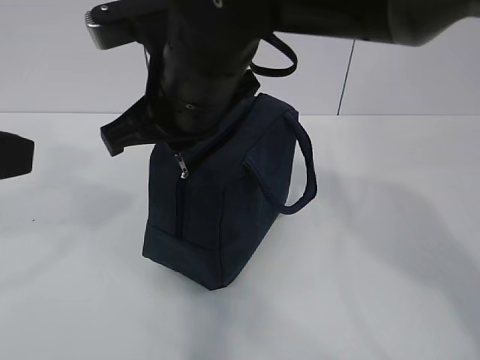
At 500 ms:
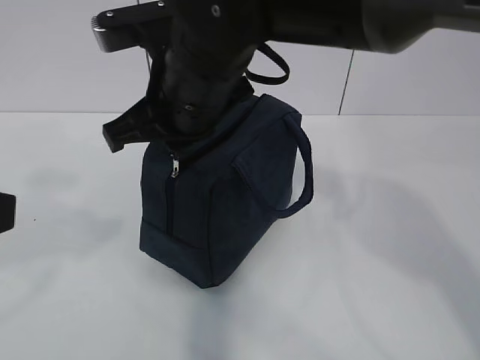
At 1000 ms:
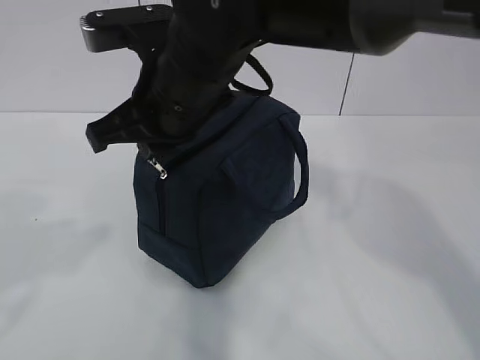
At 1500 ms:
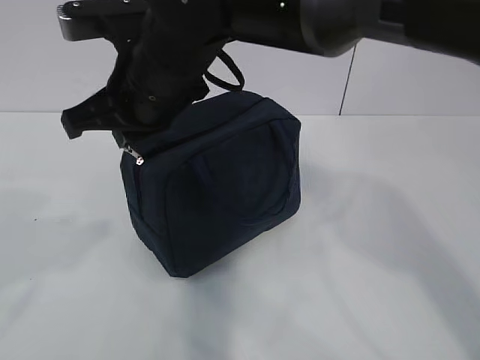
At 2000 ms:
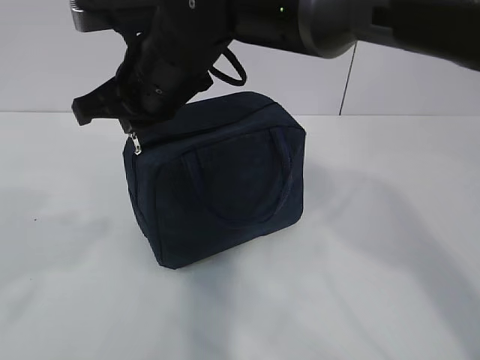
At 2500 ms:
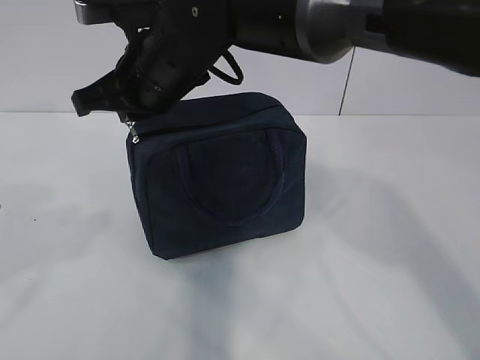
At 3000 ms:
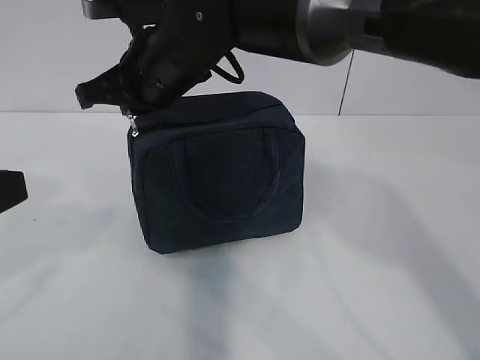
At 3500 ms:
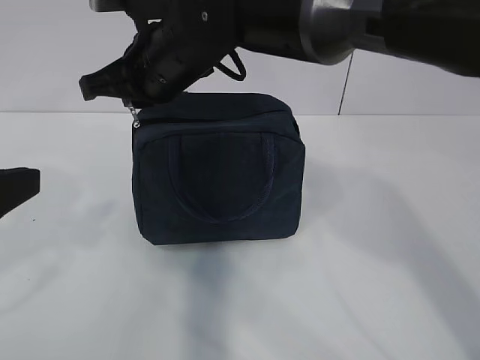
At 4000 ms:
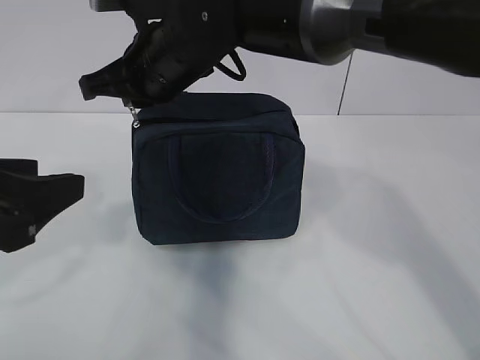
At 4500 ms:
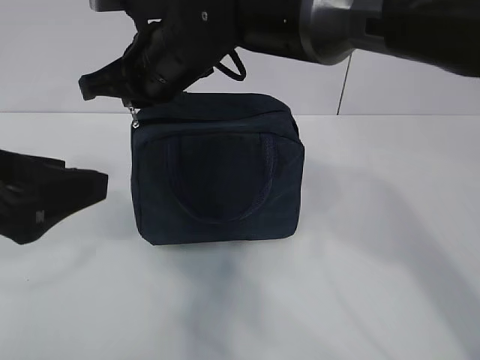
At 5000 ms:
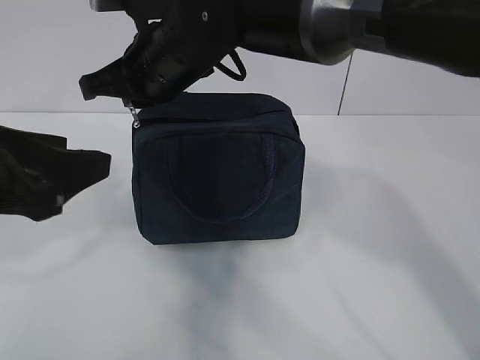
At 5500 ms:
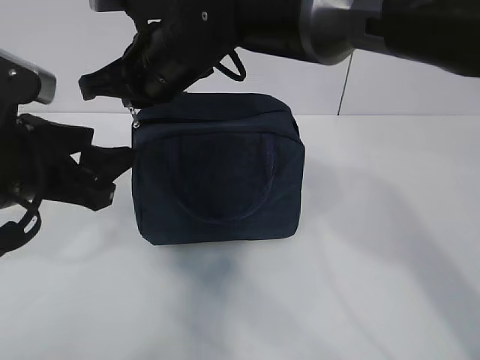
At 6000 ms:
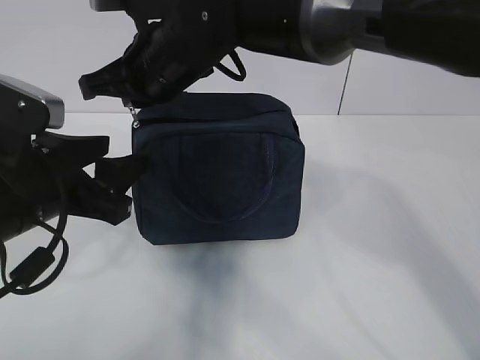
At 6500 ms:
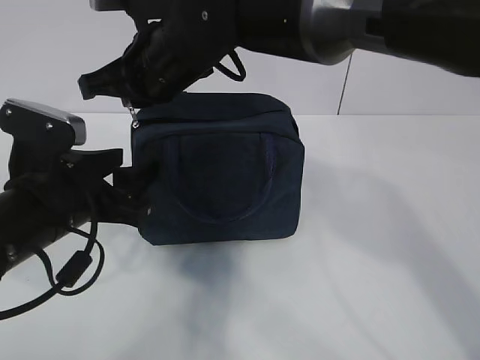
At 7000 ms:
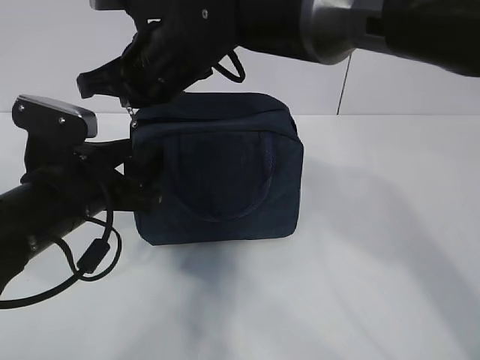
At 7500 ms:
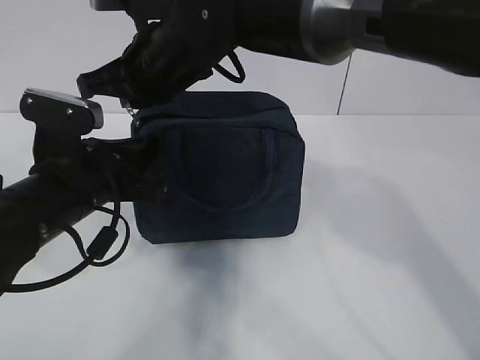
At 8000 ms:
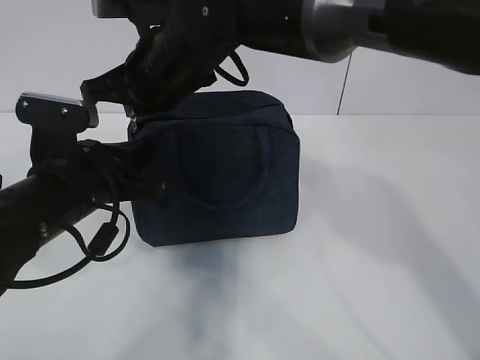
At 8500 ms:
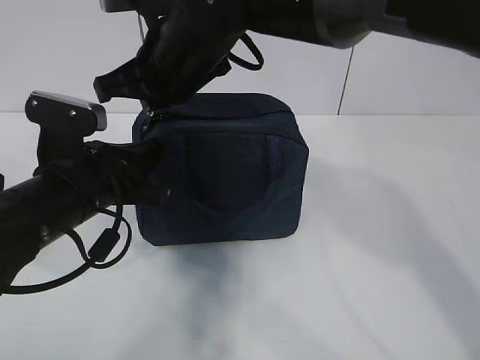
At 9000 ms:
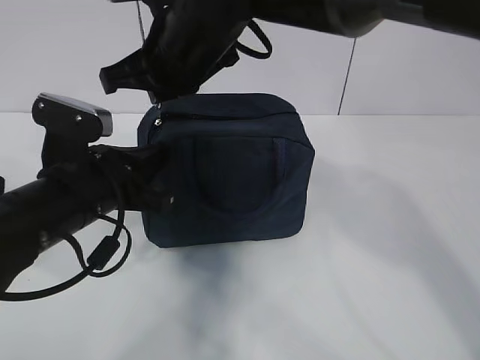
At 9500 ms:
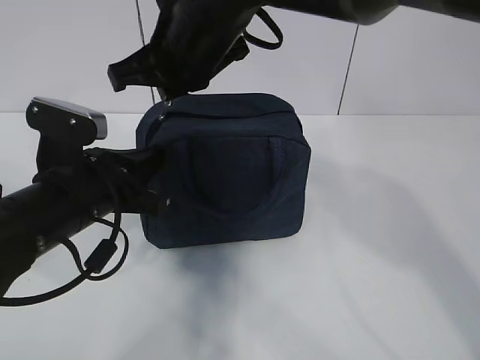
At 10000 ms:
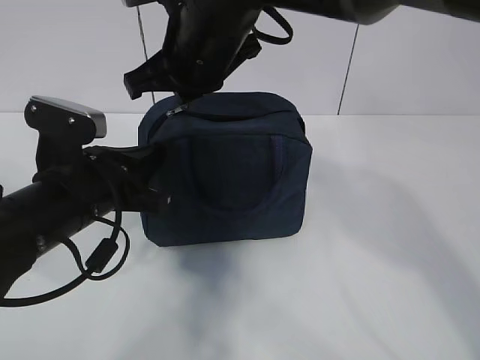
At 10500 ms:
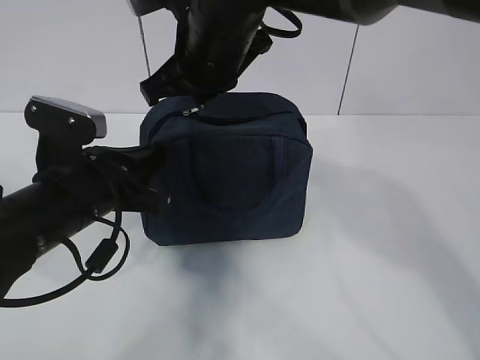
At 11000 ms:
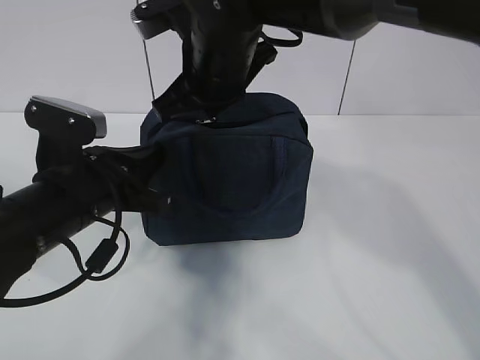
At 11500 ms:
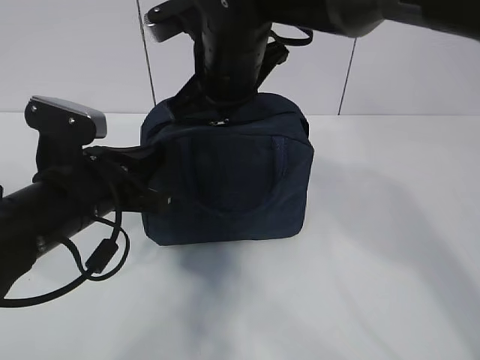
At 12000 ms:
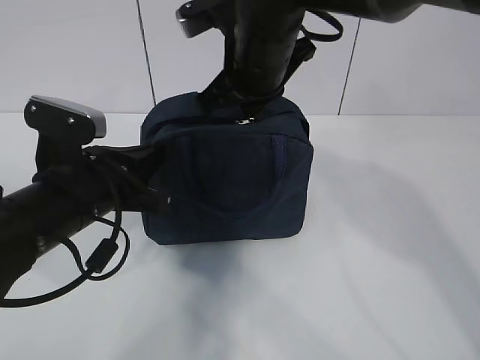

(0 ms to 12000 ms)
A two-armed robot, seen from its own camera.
Step, 0 ms - 5000 ms: Pull the zipper with your right hand.
0 ms - 2000 ms: The right gripper heads forward, covering about 5 cm. The left gripper shifts by roughly 5 cm.
2000 ms - 4000 ms: The left gripper goes some 5 cm forward.
4000 ms - 6000 ms: The left gripper travels forward by roughly 5 cm.
6000 ms - 8000 ms: The left gripper moves roughly 5 cm, and closes its fingers.
8000 ms - 10000 ms: There are only small adjustments of the grippers.
10000 ms - 12000 ms: The right gripper shifts by about 5 cm.

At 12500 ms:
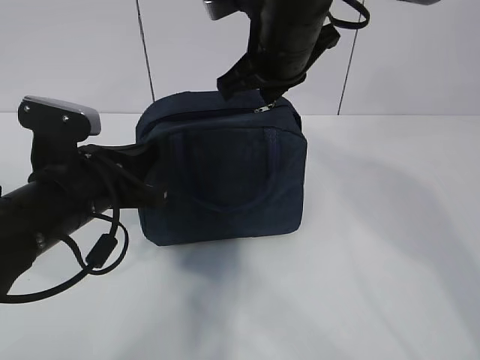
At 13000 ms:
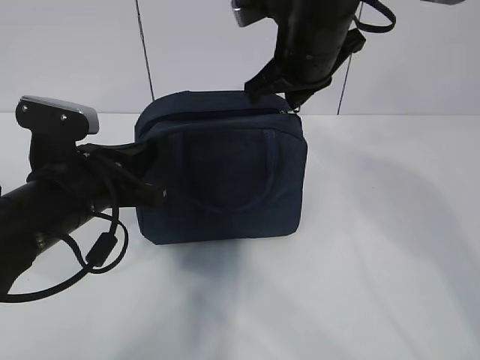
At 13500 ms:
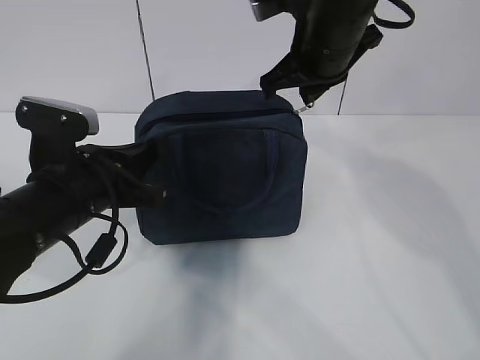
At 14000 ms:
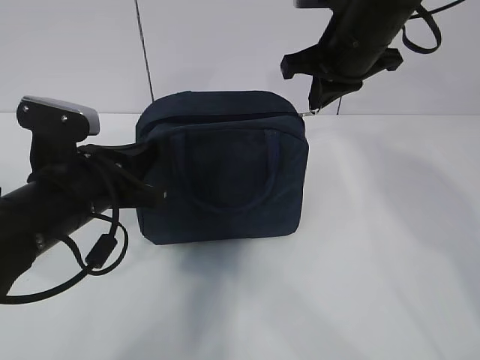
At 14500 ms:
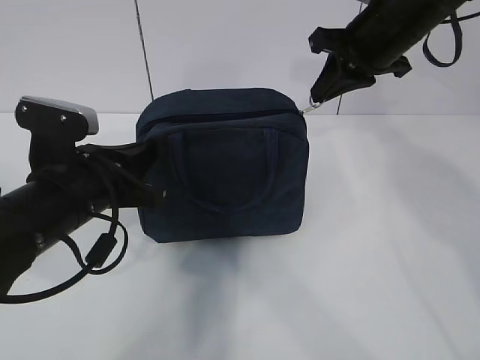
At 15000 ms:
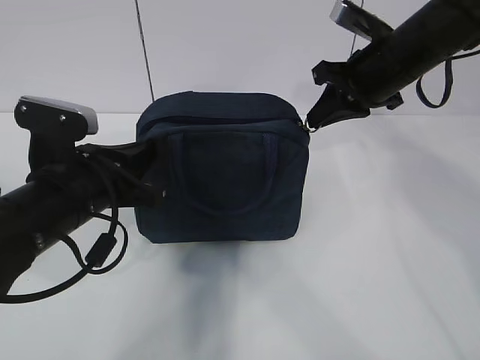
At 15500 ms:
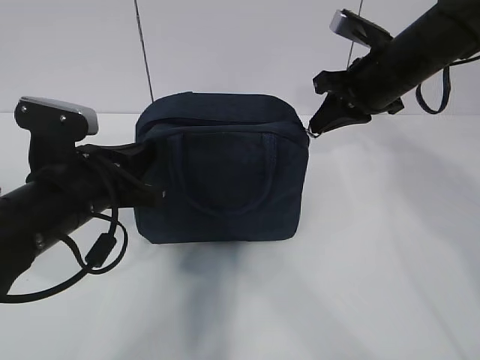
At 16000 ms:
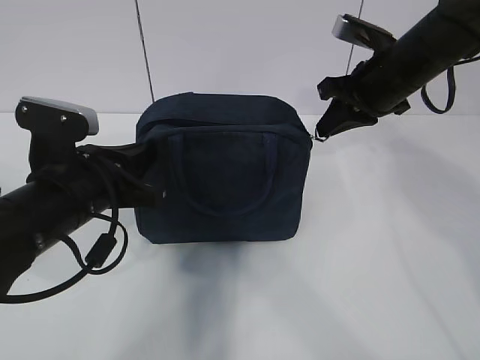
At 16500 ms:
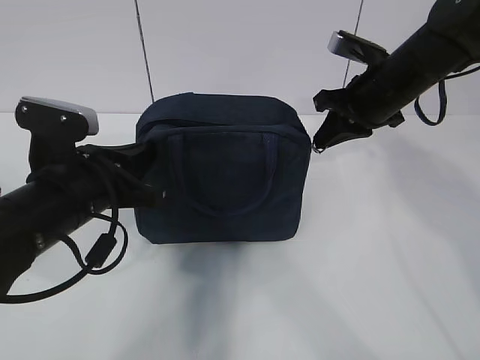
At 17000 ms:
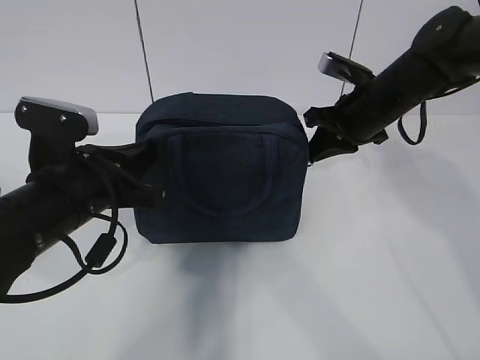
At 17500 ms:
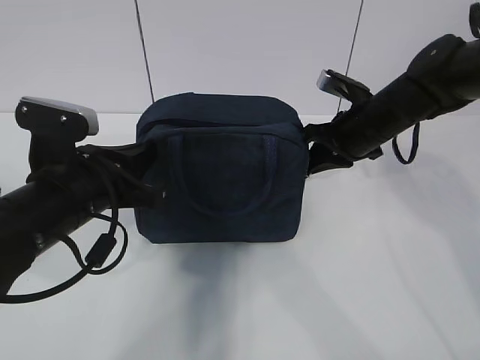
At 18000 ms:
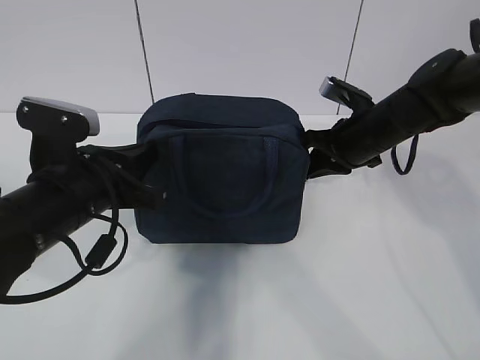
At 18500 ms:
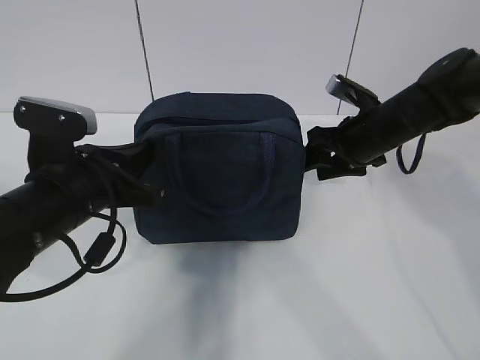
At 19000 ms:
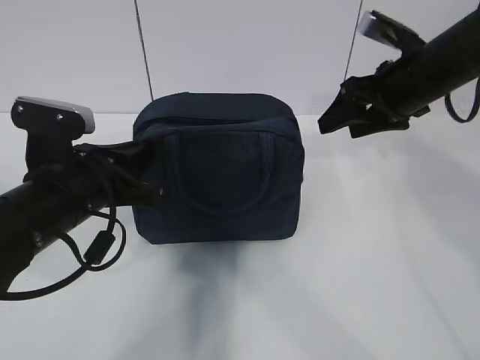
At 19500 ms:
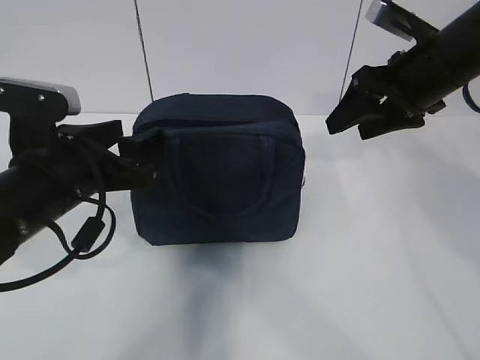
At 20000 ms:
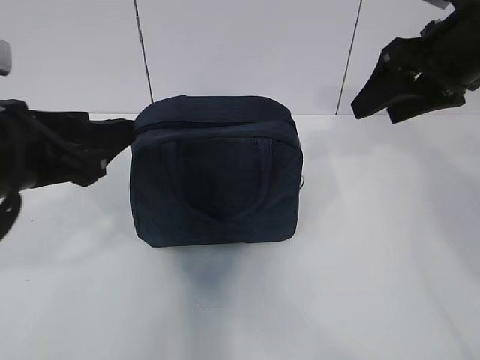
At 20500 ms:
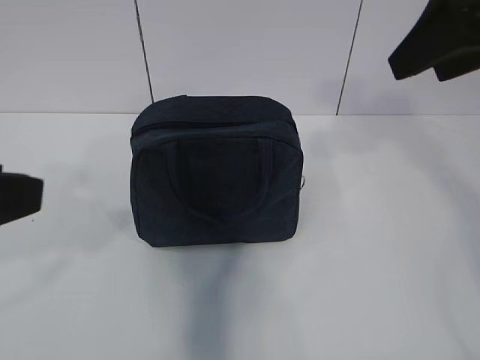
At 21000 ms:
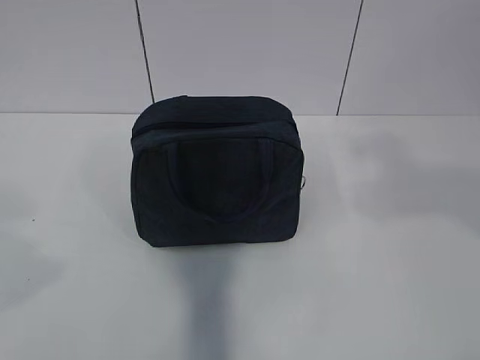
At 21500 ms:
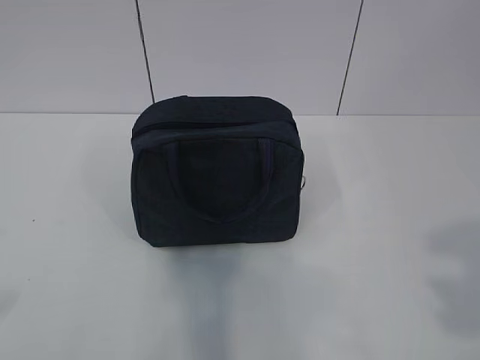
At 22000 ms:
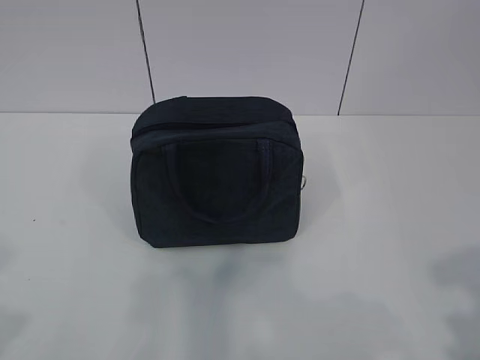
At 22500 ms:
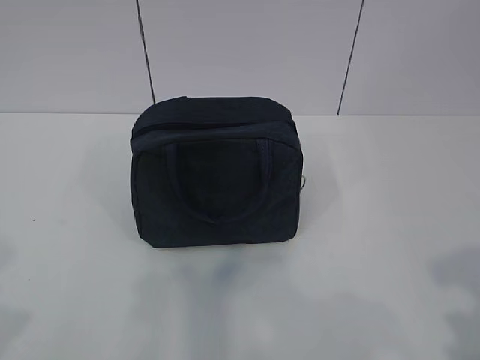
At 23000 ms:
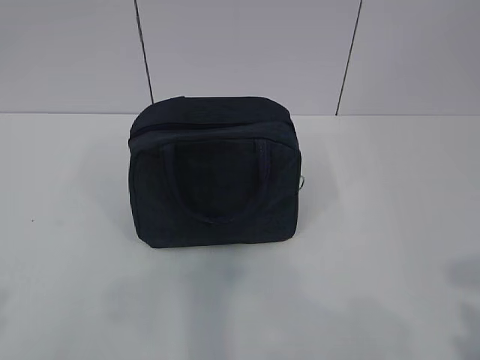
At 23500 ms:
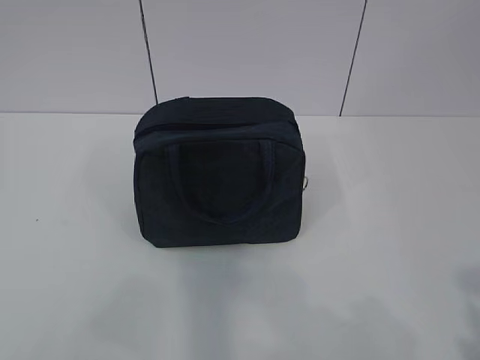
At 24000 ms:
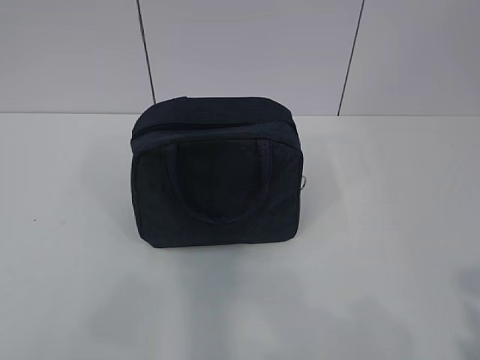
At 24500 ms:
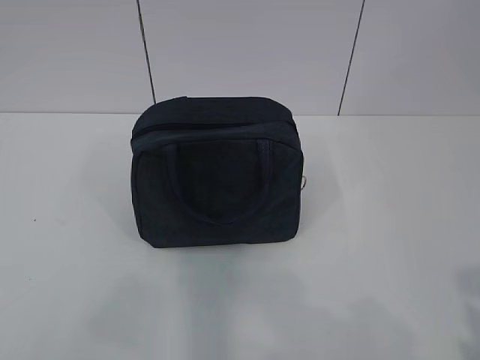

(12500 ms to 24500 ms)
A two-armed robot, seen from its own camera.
12500 ms - 14500 ms: The right gripper moves to the right, some 10 cm.
14500 ms - 16500 ms: The right gripper goes approximately 5 cm downward.
16500 ms - 18500 ms: The right gripper heads downward, covering about 5 cm, and opens up.
18500 ms - 20500 ms: The left gripper moves upward, backward and to the left, some 20 cm, and opens; the right gripper shifts approximately 30 cm upward and backward.
20500 ms - 22500 ms: The left gripper travels backward and to the left by roughly 10 cm. Meanwhile the right gripper heads backward and downward, covering some 25 cm.

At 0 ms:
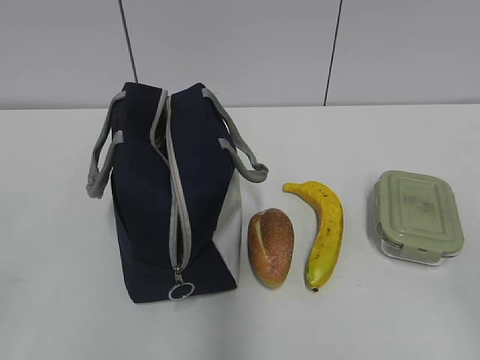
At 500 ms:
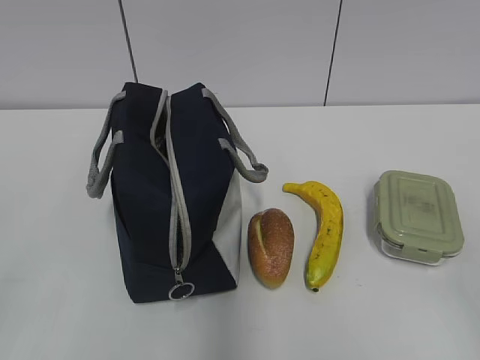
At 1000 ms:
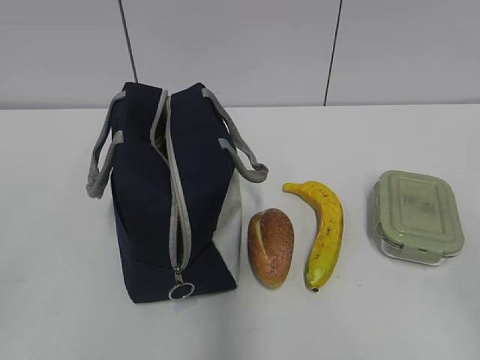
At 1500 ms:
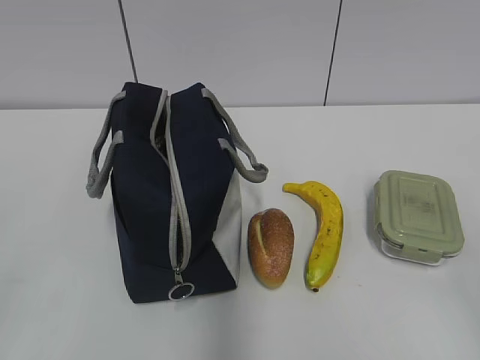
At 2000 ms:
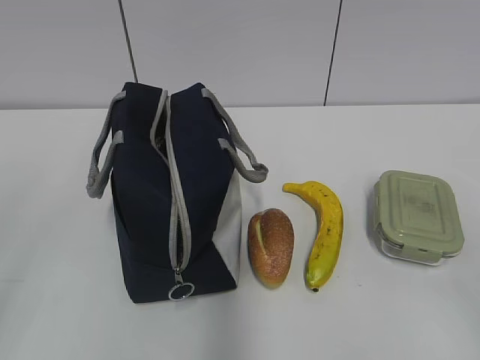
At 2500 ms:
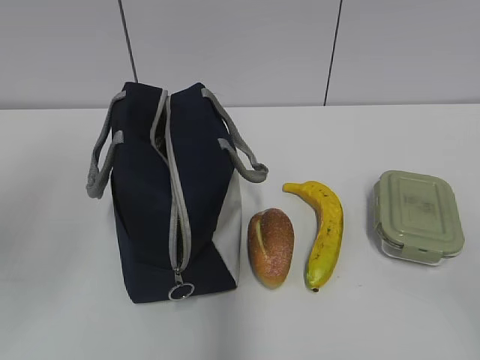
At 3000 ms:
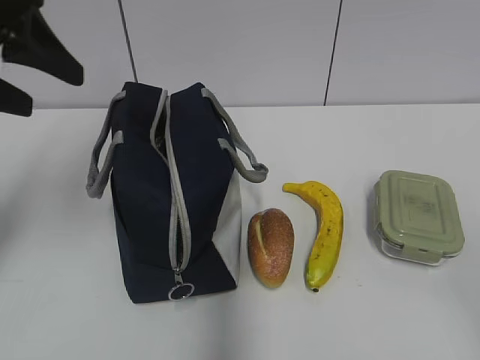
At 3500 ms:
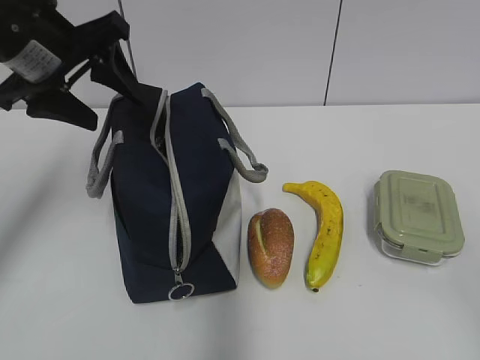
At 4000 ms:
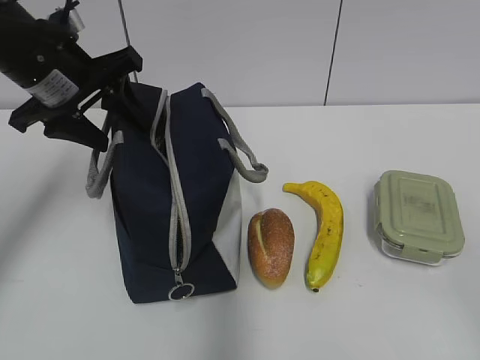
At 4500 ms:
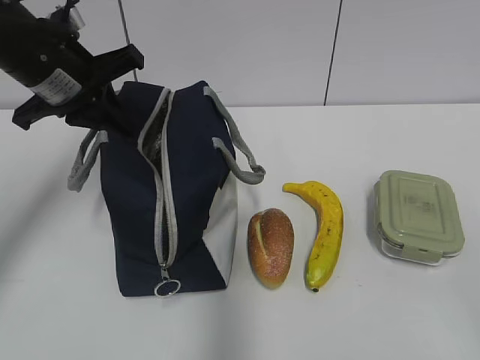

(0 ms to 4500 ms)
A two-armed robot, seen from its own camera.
2000 ms - 4500 ms: The left gripper travels forward by approximately 30 cm, and closes up.
